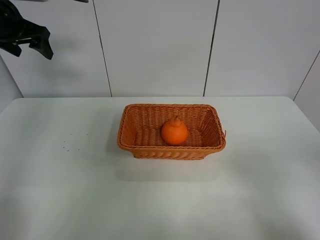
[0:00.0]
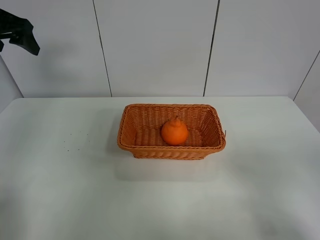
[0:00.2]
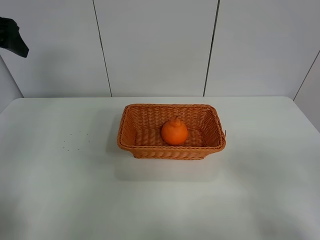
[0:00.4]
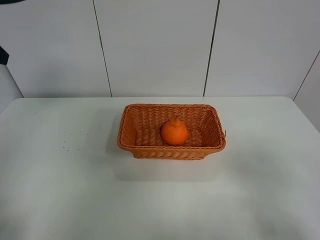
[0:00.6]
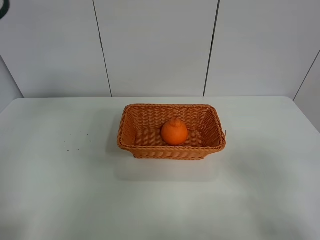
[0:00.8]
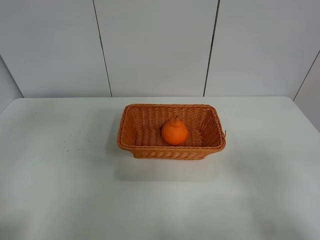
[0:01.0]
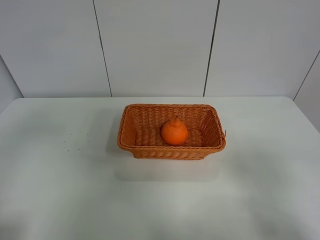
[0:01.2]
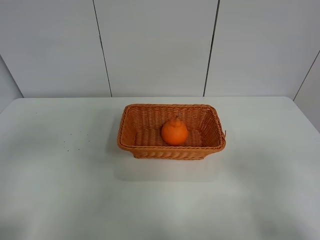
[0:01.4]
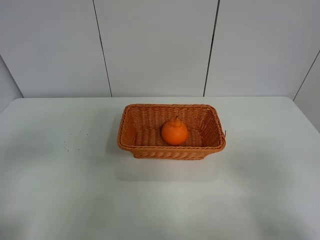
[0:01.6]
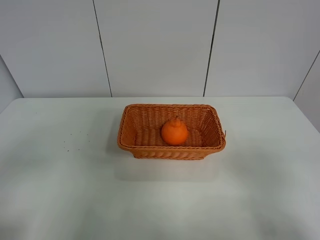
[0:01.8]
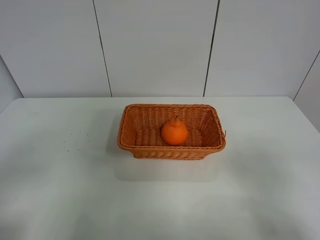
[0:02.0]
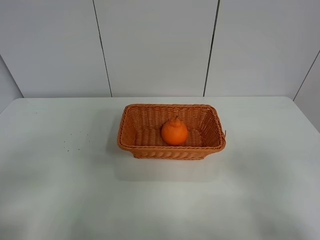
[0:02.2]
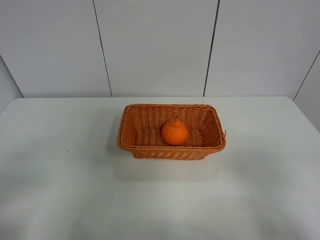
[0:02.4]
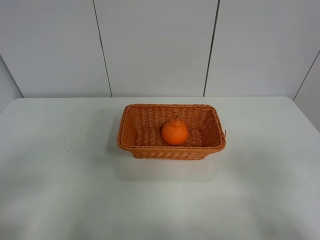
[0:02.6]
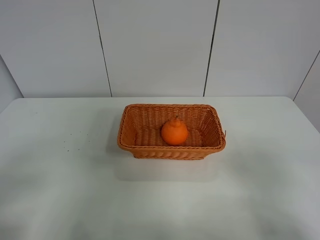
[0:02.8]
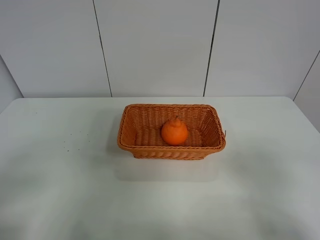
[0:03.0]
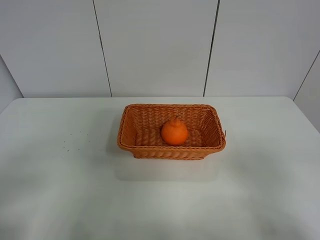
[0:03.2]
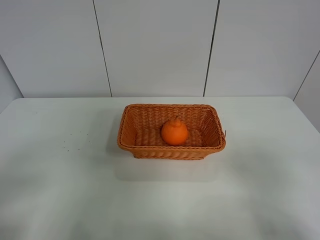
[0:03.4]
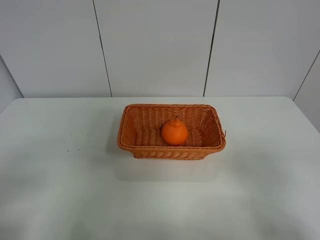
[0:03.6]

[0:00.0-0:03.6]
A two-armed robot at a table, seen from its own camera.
Task of the whole recording: left gripper grabs oranges and puts them in the basket.
0:00.0 to 0:01.8: The left gripper goes roughly 40 cm backward.
